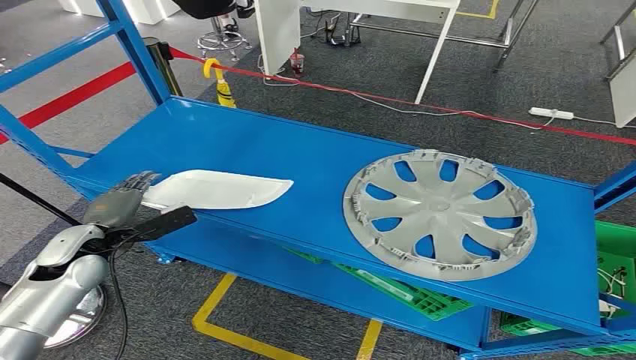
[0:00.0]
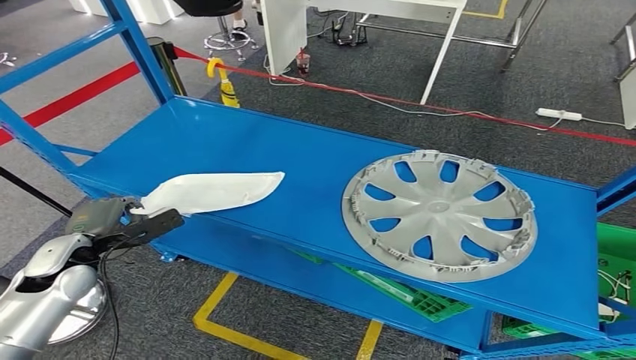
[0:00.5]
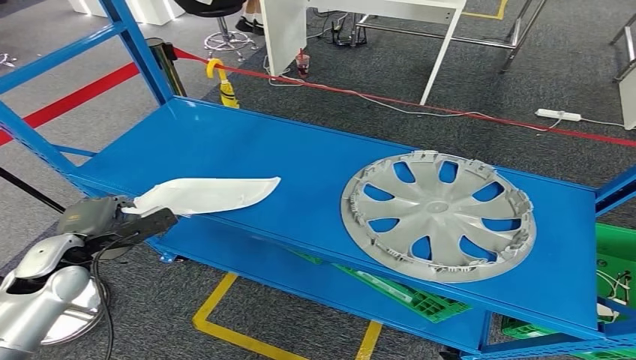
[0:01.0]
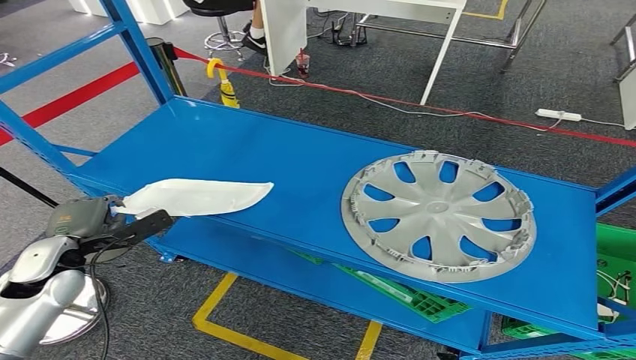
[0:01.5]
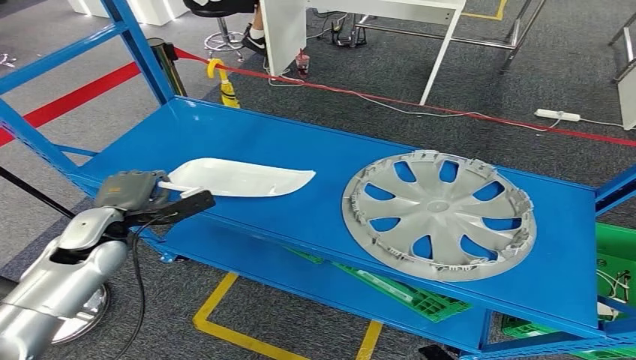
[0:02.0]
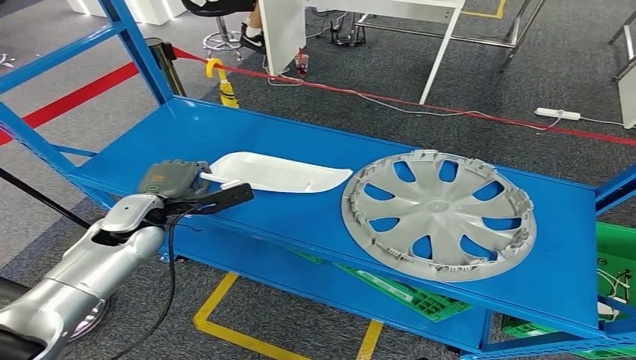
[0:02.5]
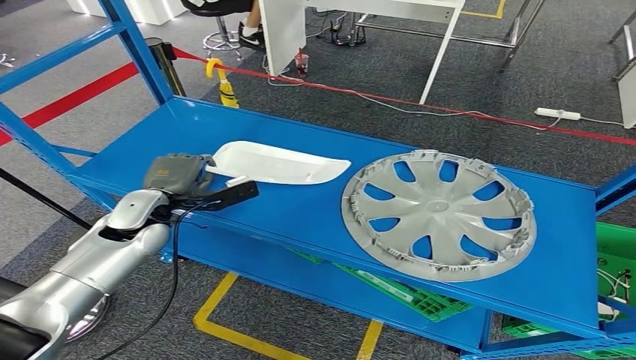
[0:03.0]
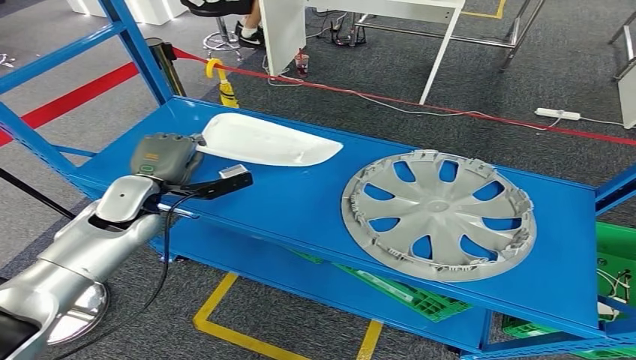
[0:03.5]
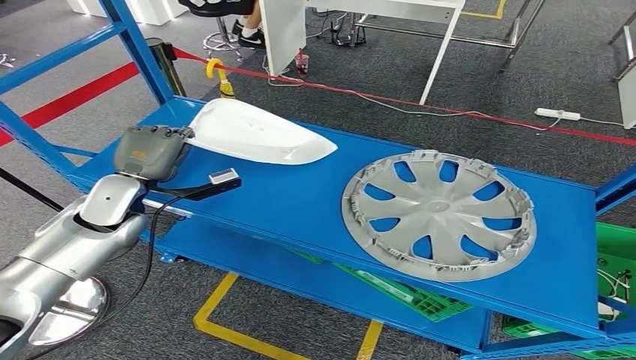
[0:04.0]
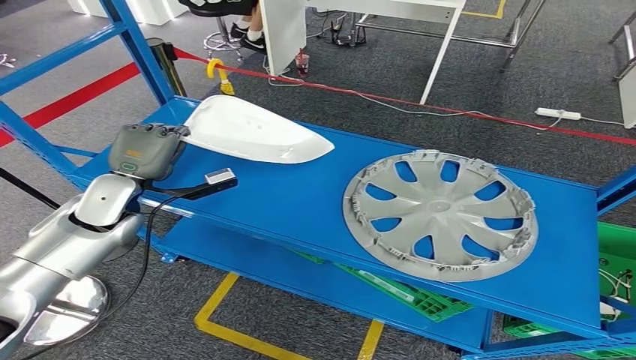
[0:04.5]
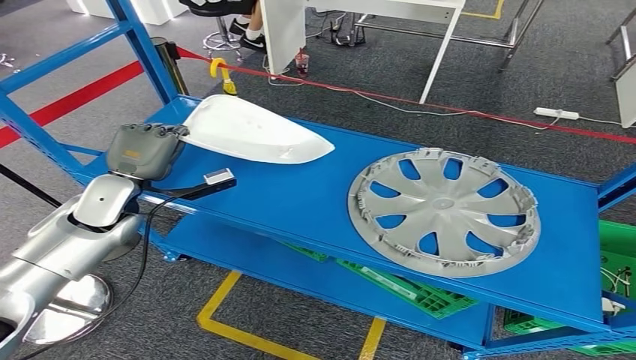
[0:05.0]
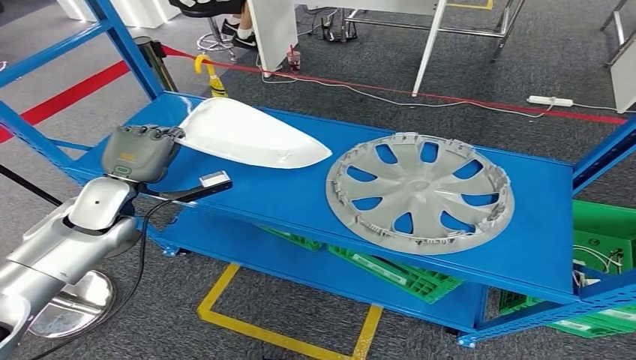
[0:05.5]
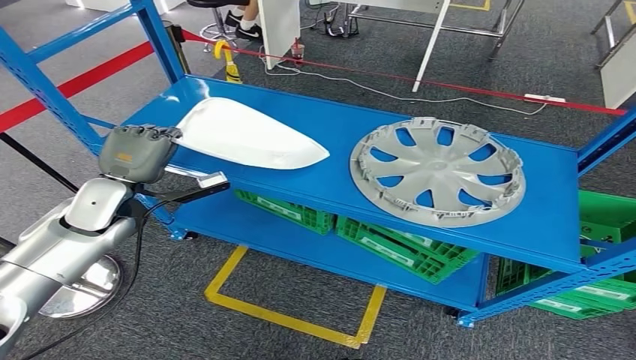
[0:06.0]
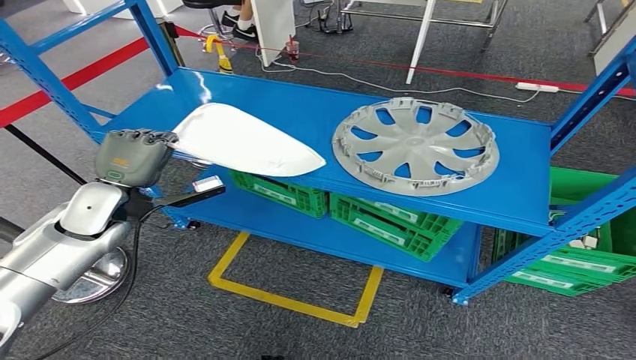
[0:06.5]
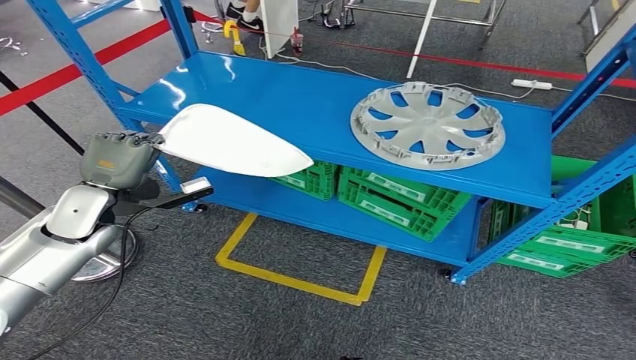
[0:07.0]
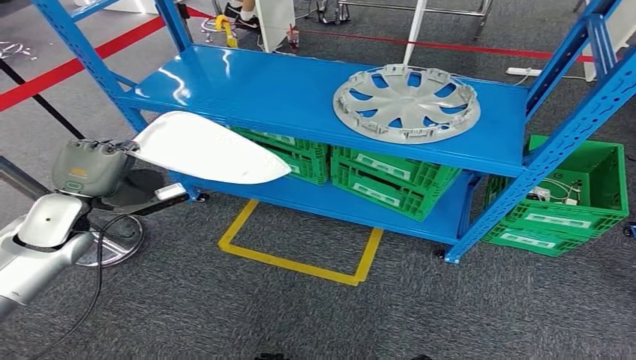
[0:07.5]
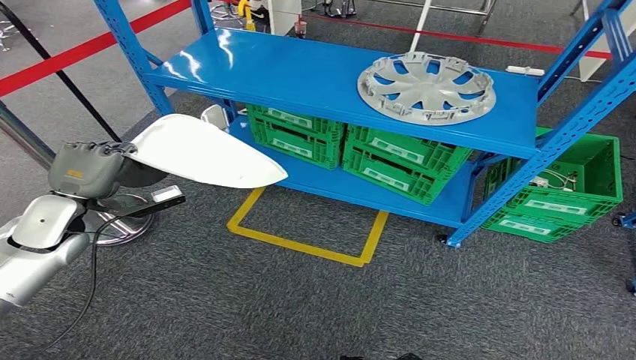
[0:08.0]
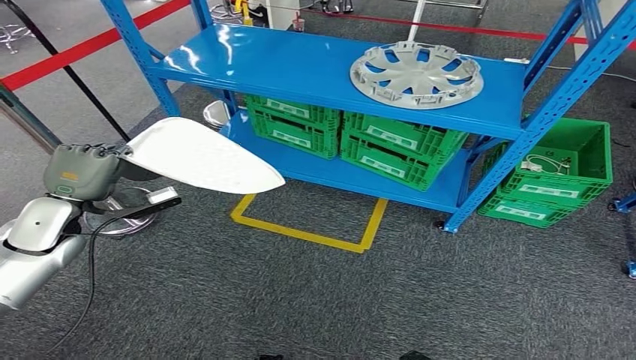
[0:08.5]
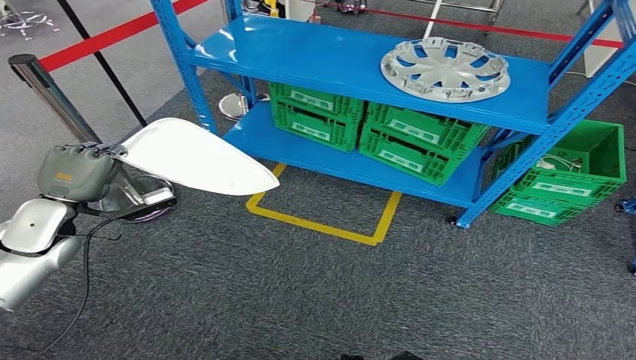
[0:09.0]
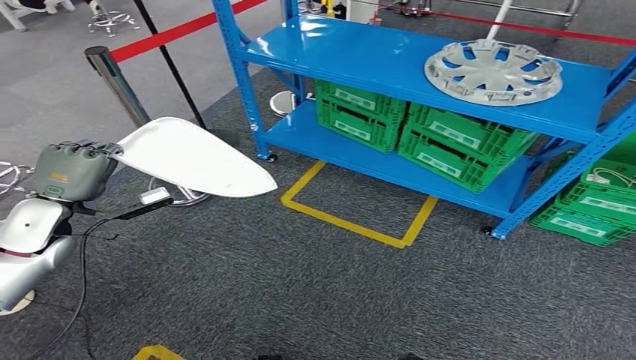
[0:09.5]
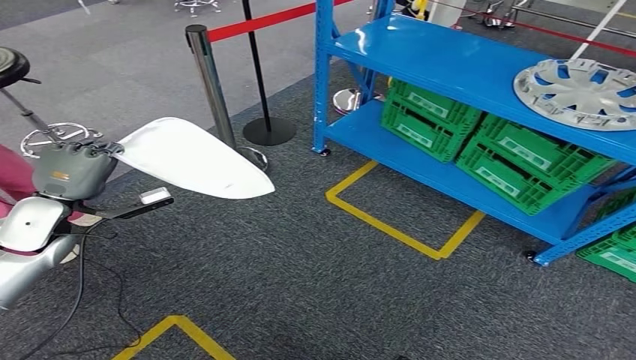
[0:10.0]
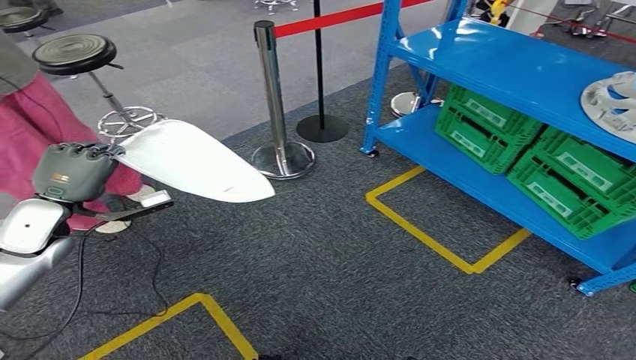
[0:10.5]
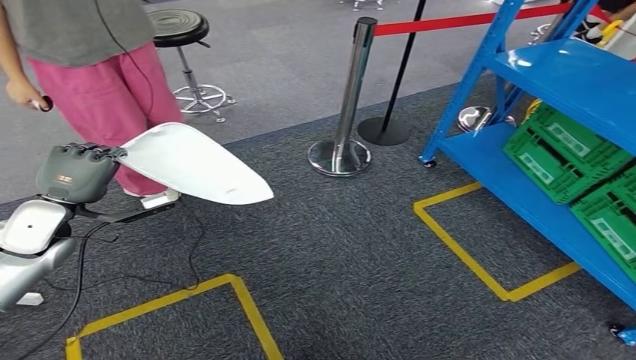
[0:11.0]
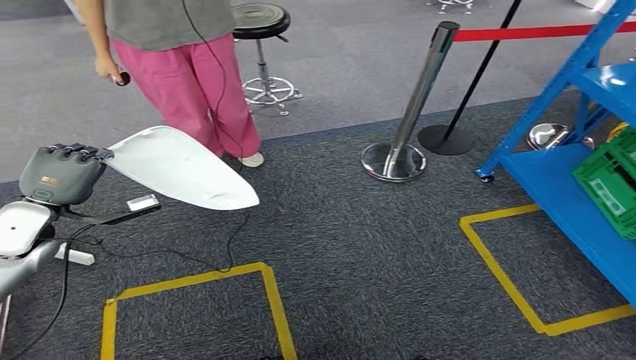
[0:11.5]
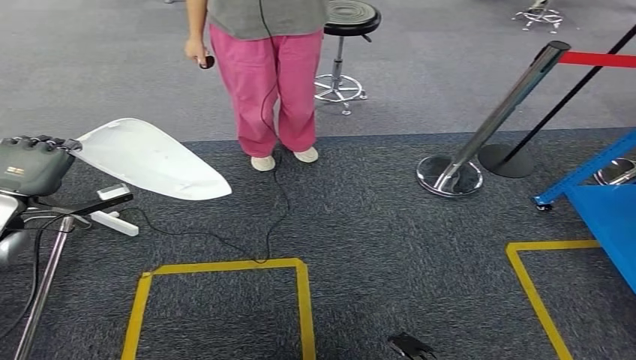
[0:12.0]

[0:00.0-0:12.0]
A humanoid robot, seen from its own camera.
Step, 0:00.0 to 0:06.5: Pick up the small parts from the shelf.
0:02.0 to 0:04.0: The left hand moves some 5 cm.

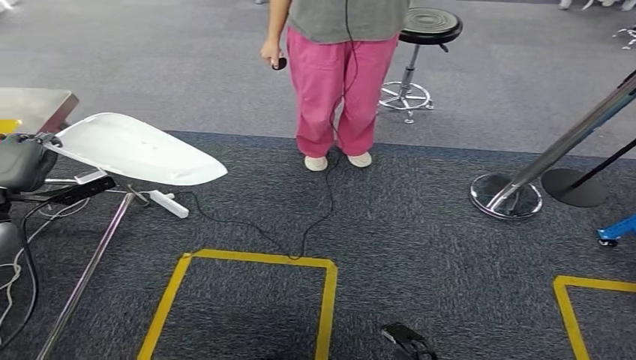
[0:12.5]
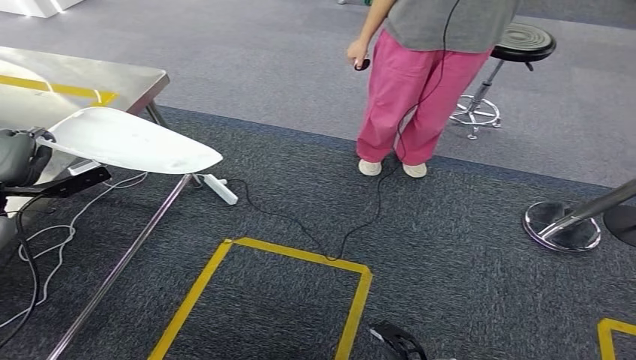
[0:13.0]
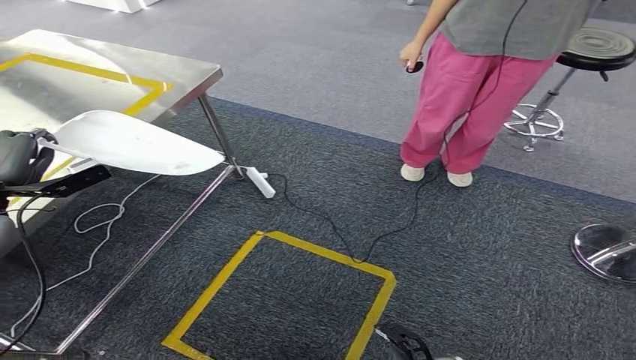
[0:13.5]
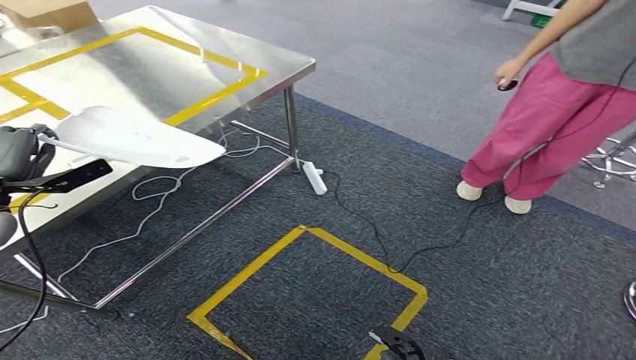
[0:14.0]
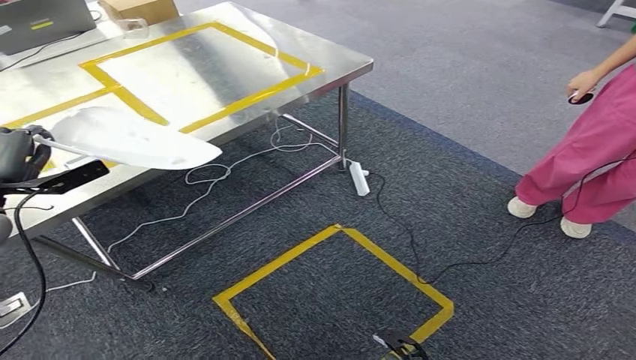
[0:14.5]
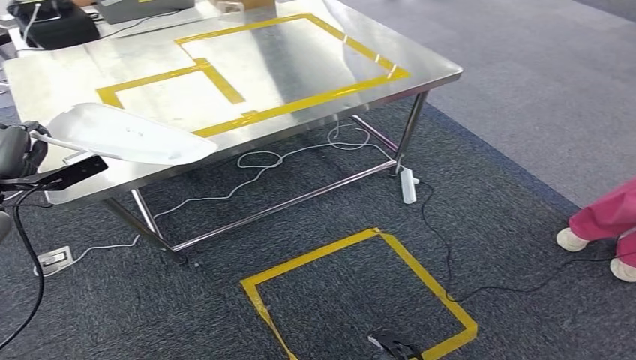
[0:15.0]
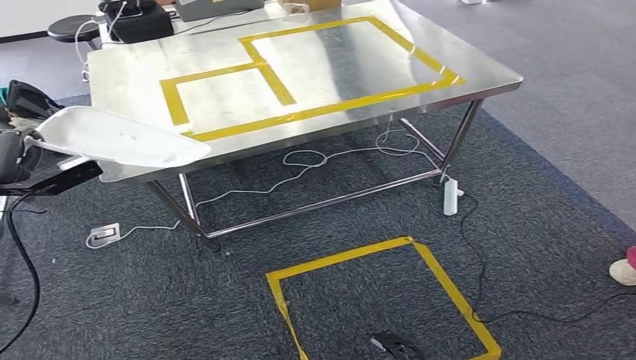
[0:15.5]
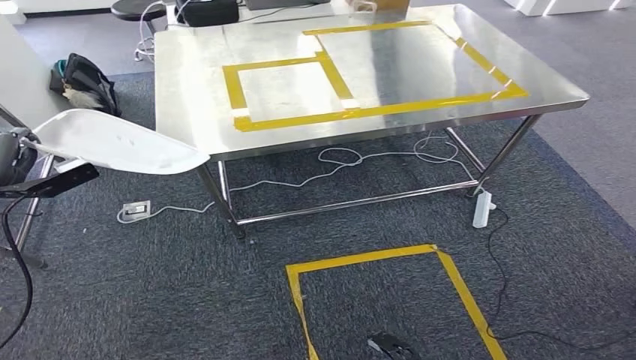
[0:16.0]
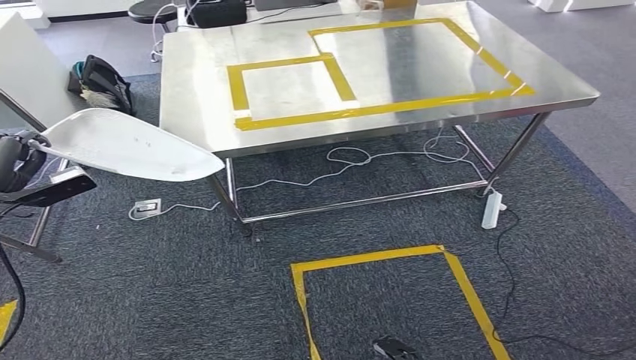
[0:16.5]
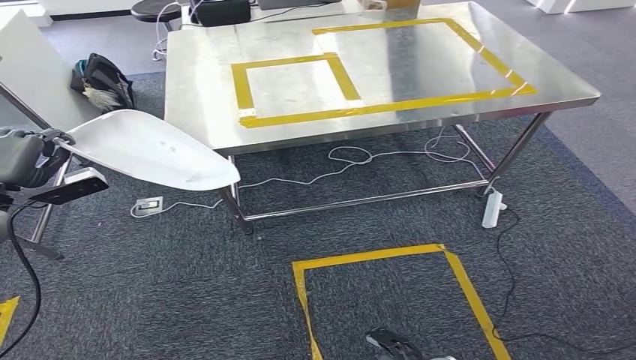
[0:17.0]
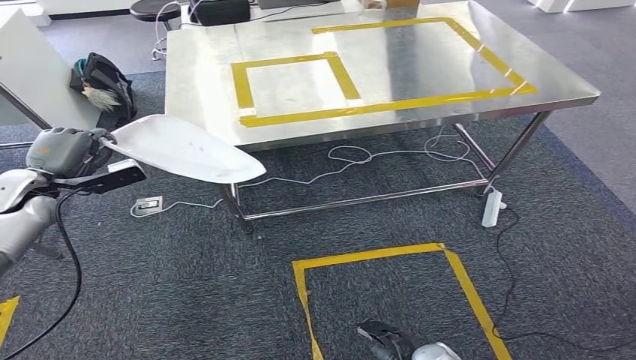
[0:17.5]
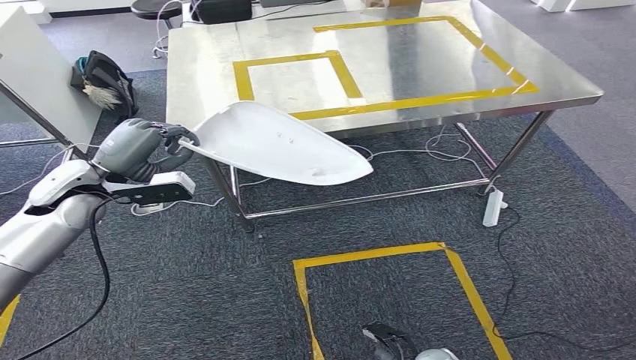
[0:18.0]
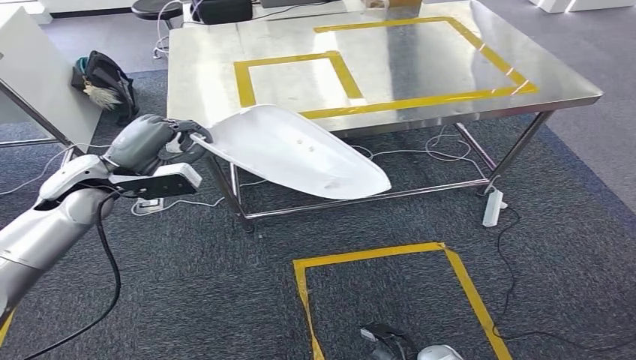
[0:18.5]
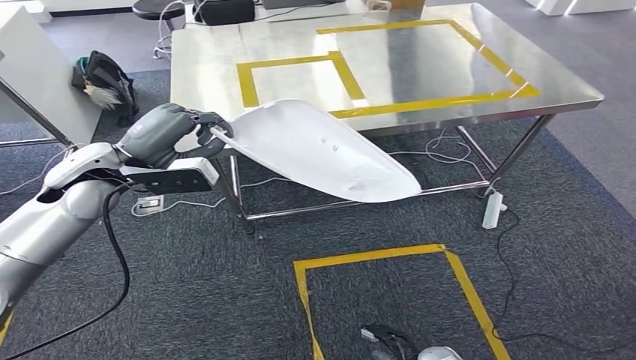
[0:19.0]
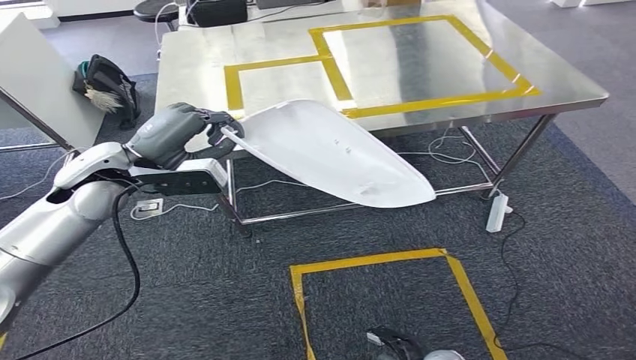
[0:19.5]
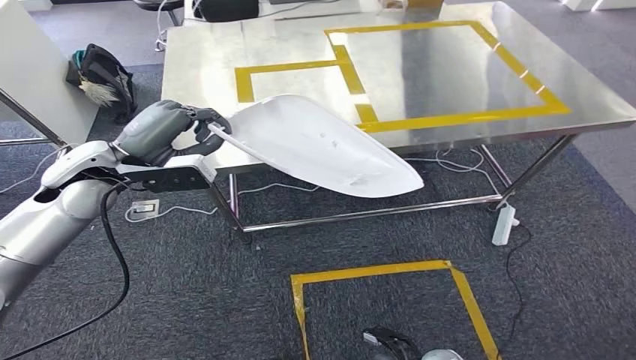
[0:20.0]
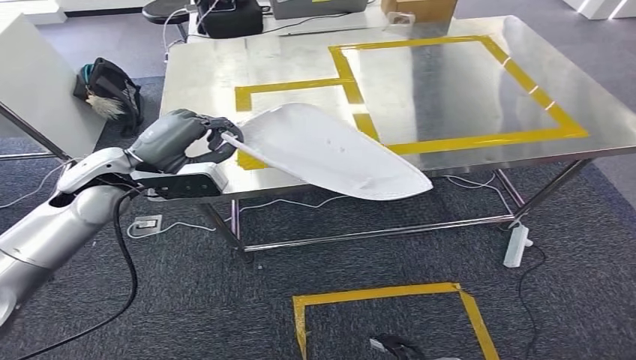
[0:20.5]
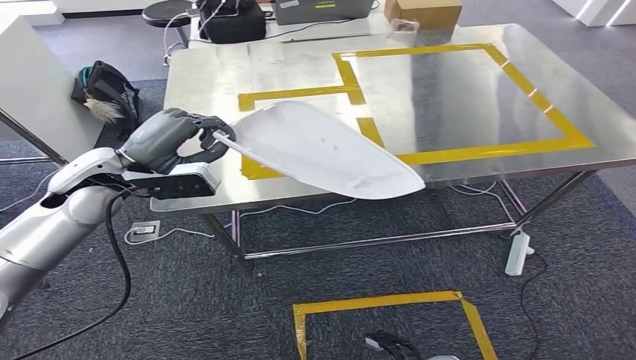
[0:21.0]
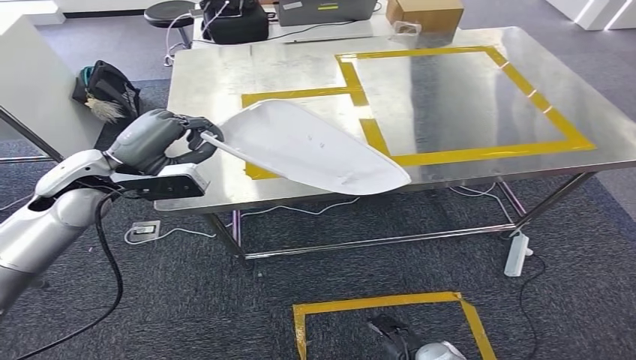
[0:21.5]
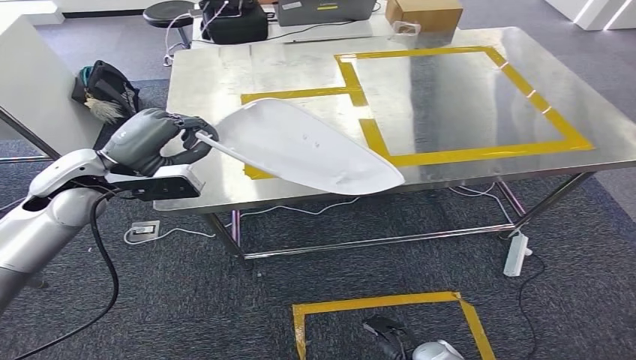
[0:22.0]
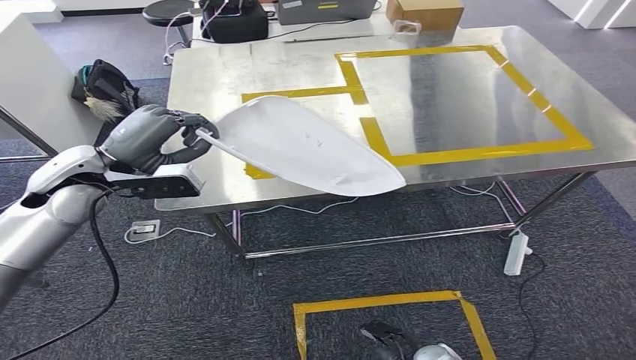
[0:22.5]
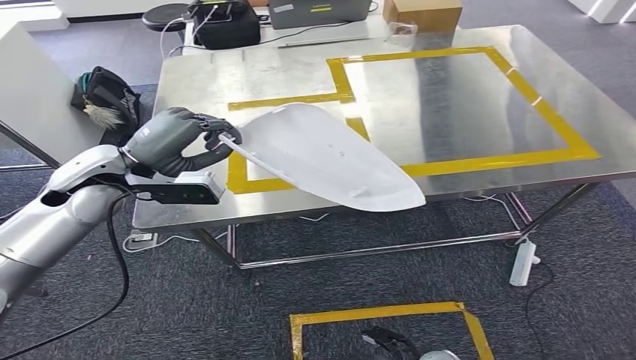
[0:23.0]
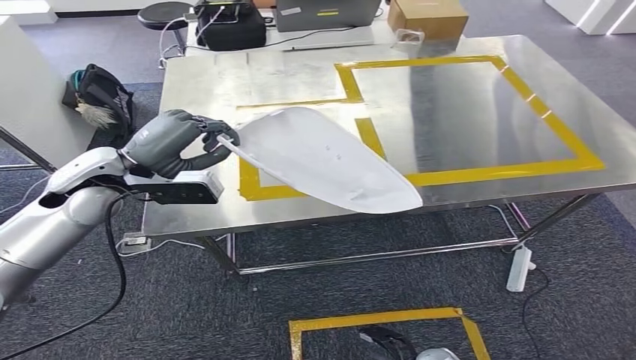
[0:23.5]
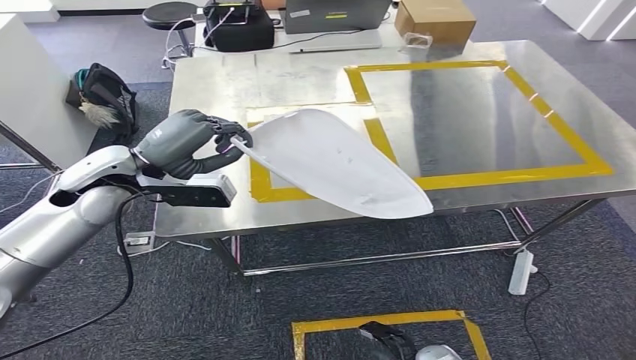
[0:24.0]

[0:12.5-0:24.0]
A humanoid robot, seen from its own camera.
Step, 0:12.5 to 0:19.5: Move the small parts to the workbench.
